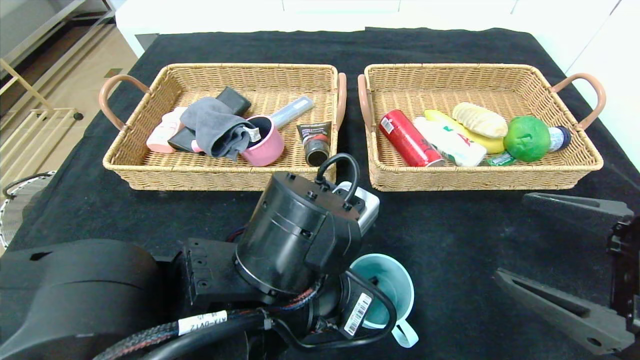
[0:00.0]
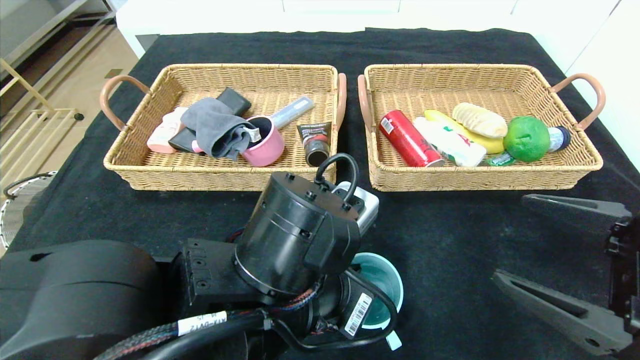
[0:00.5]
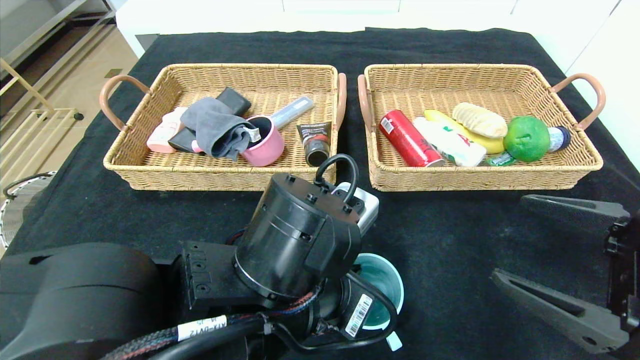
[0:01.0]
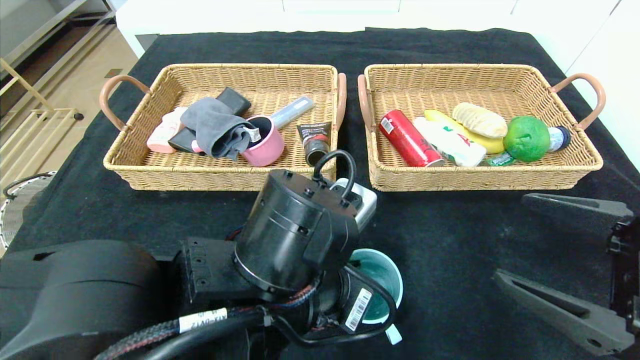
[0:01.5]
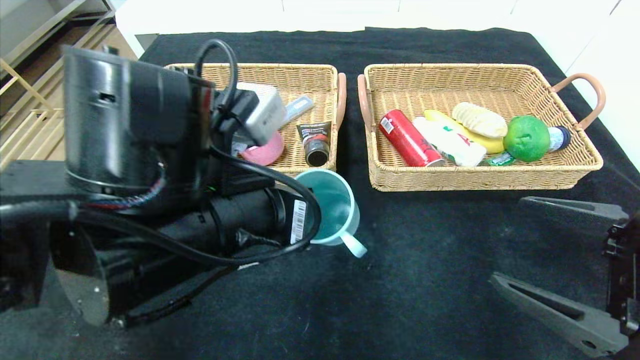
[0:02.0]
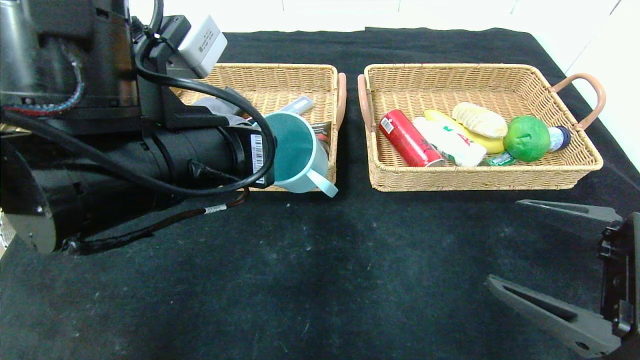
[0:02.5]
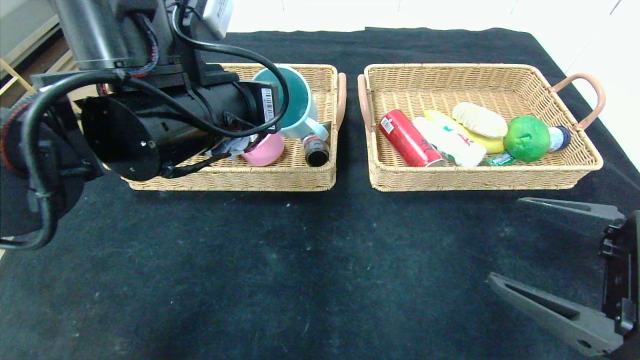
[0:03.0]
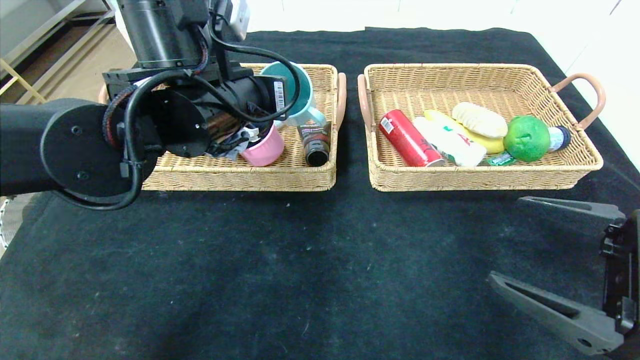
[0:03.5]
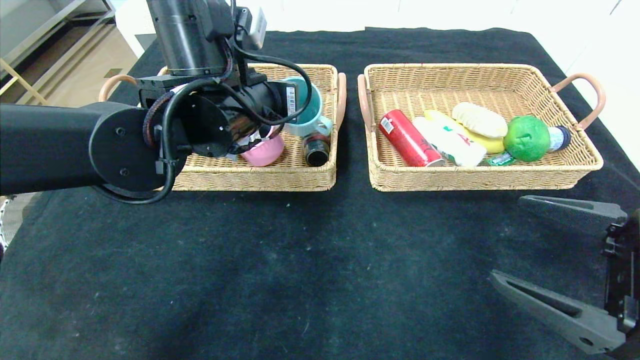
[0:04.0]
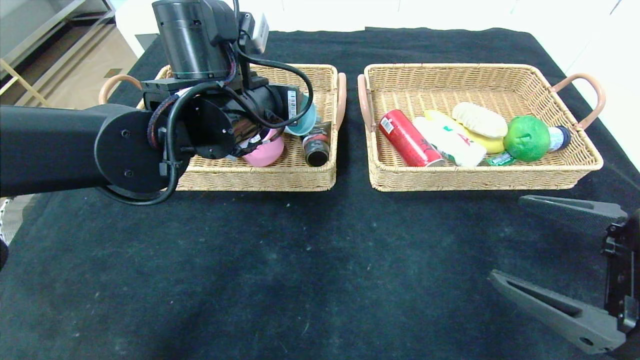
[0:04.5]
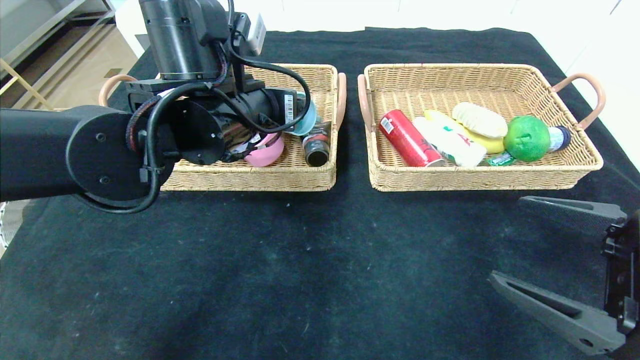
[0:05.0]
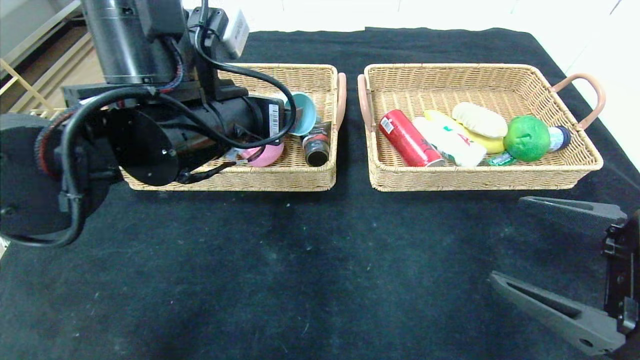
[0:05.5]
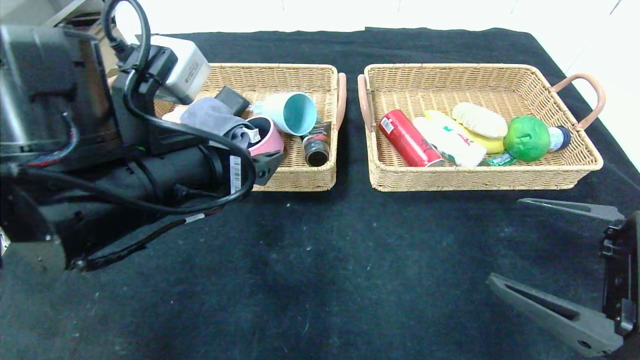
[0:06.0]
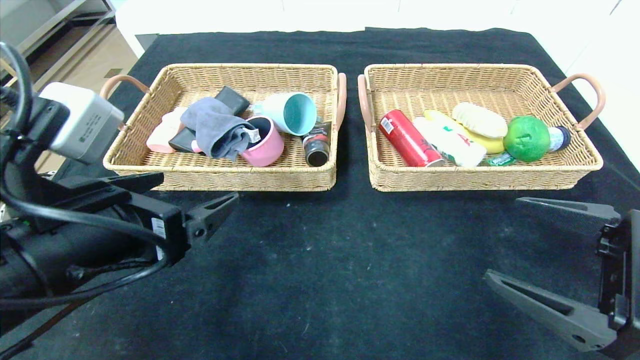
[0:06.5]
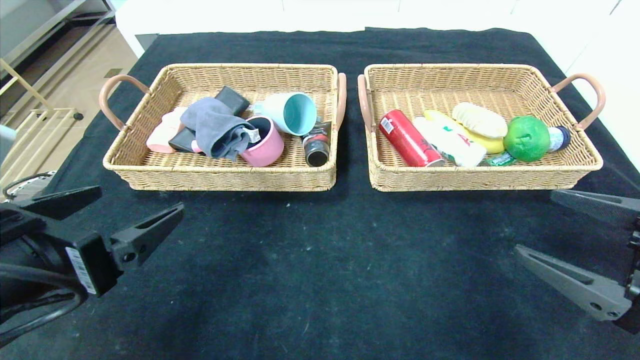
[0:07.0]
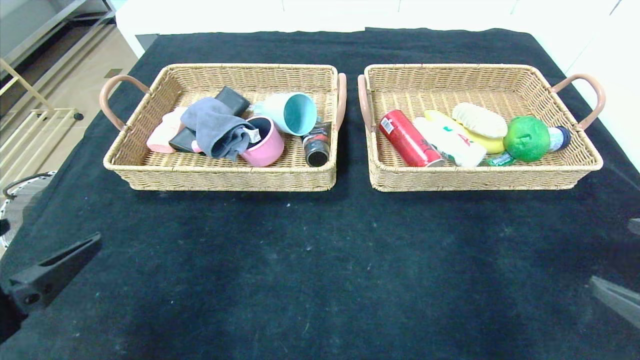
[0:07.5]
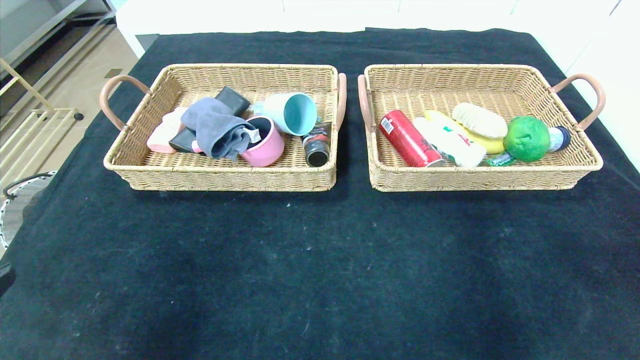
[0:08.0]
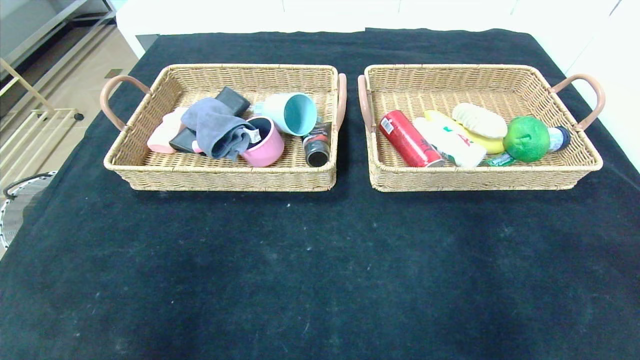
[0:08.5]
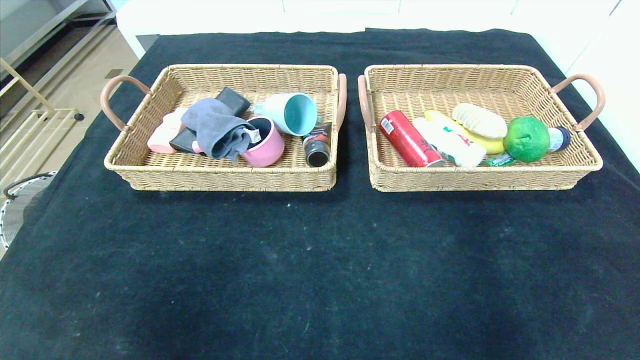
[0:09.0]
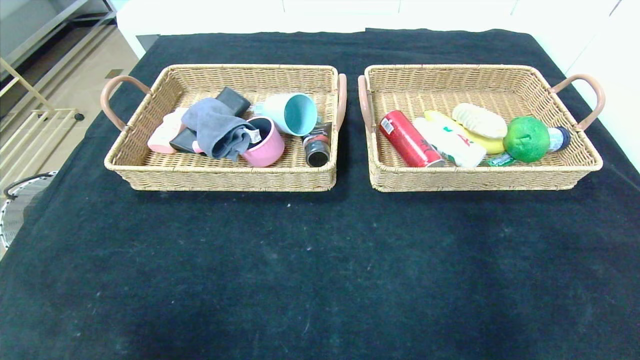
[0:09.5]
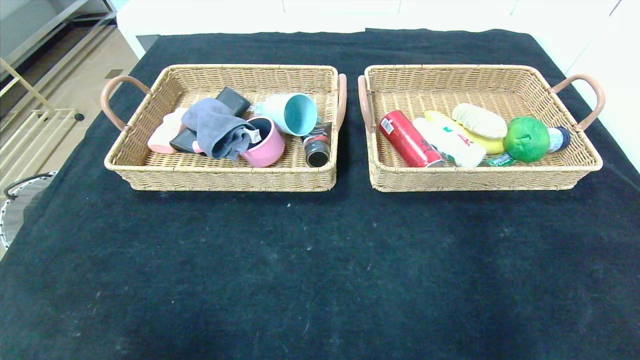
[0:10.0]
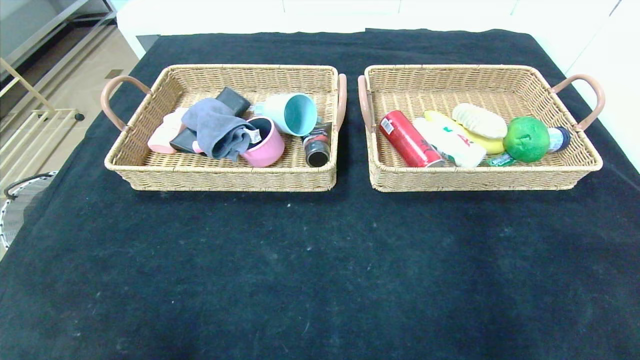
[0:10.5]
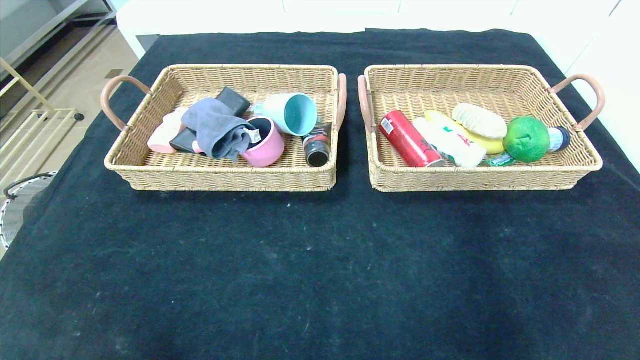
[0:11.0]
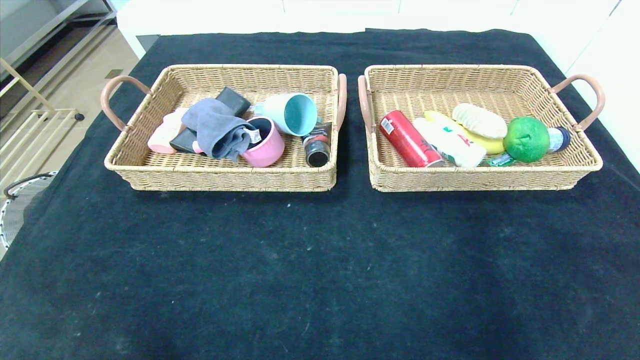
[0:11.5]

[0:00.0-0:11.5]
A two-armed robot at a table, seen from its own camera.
Step, 0:00.0 to 0:04.0: Grasp the blue cup and put it in the left basket.
0:00.0 to 0:02.0: The left gripper is displaced upward and to the left by about 10 cm, and closes up.
0:02.0 to 0:04.0: The left gripper is displaced forward by about 15 cm.
0:04.0 to 0:06.0: The left gripper heads backward, covering roughly 10 cm, and opens.
0:06.0 to 0:07.5: The right gripper shifts approximately 5 cm to the right. Meanwhile the left gripper travels backward and to the left by roughly 15 cm.
0:07.5 to 0:09.5: The left gripper goes some 15 cm backward and downward, while the right gripper is displaced backward by about 15 cm.

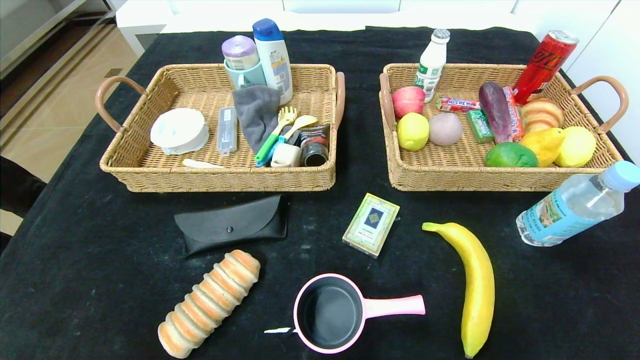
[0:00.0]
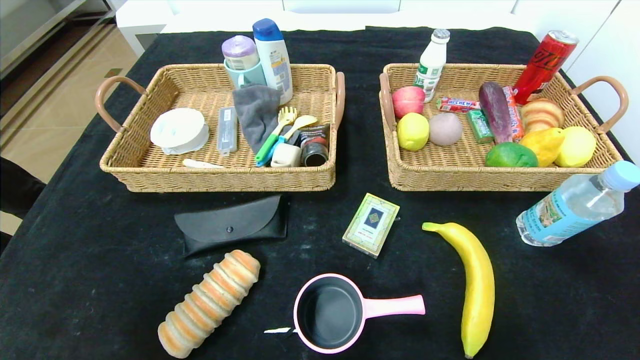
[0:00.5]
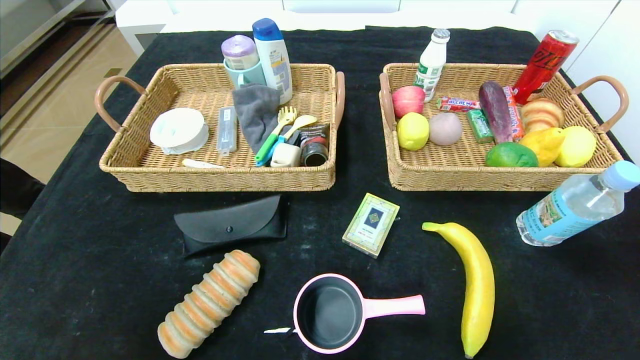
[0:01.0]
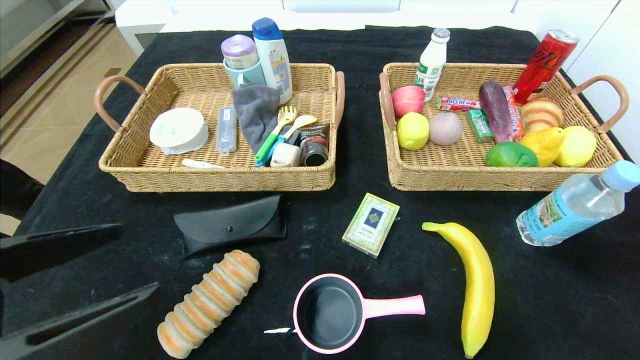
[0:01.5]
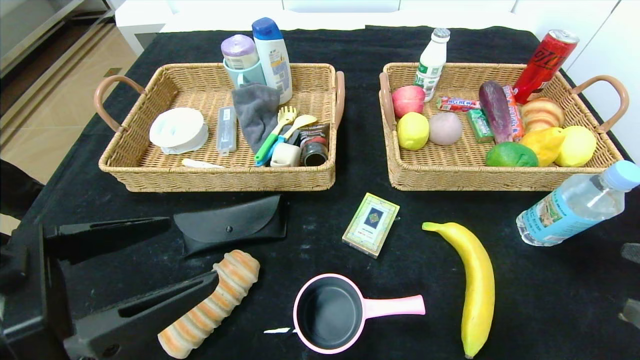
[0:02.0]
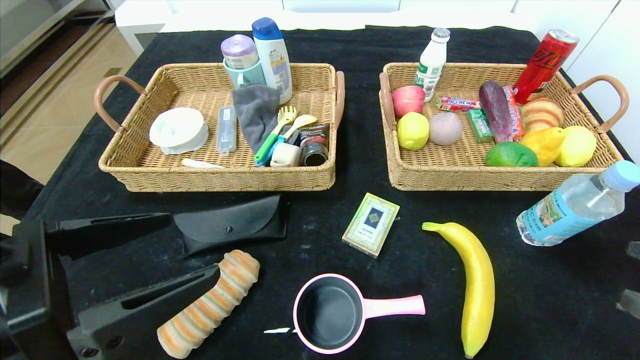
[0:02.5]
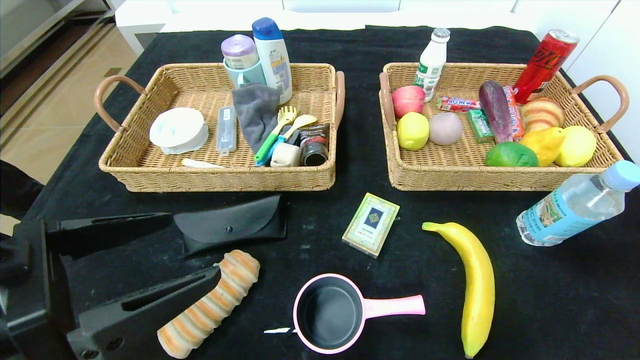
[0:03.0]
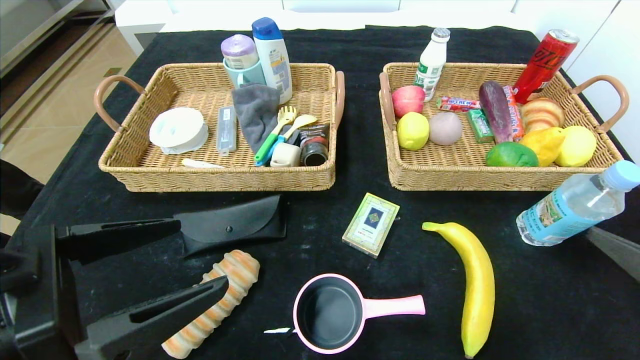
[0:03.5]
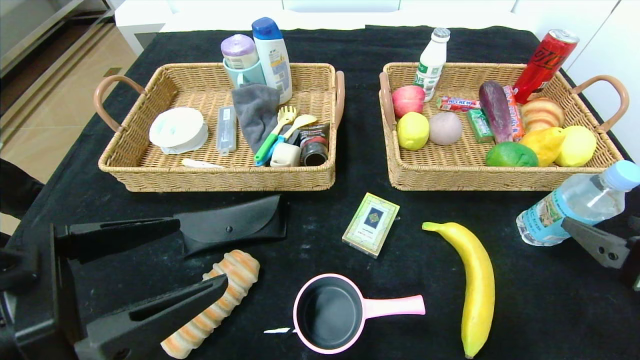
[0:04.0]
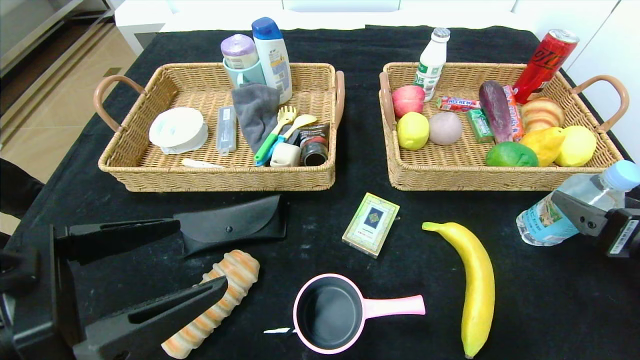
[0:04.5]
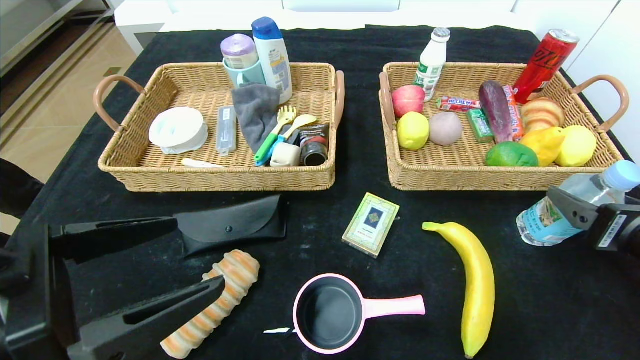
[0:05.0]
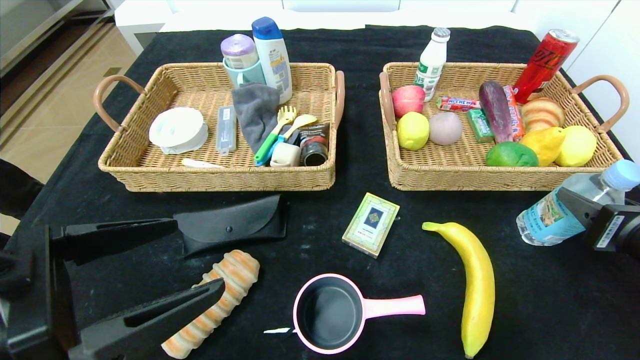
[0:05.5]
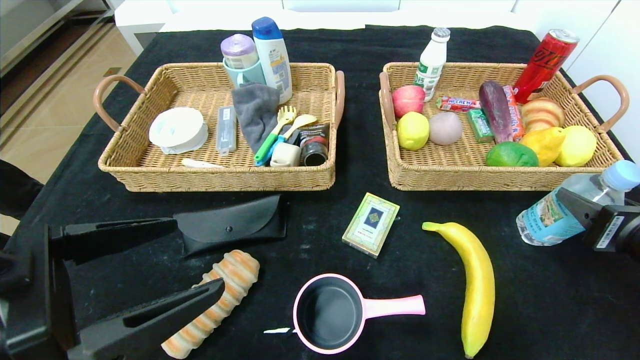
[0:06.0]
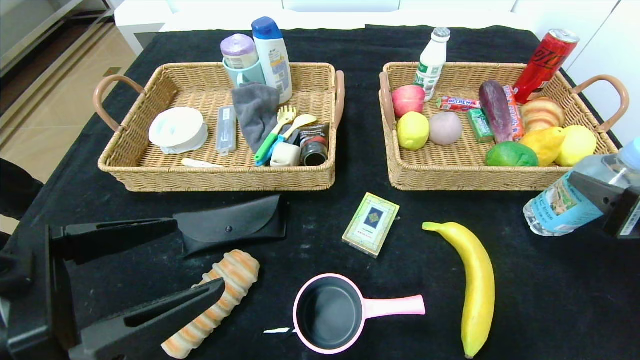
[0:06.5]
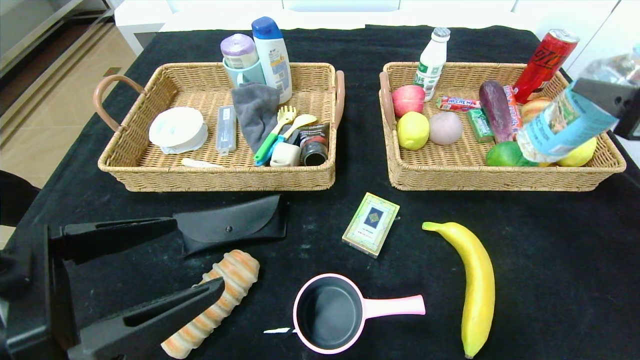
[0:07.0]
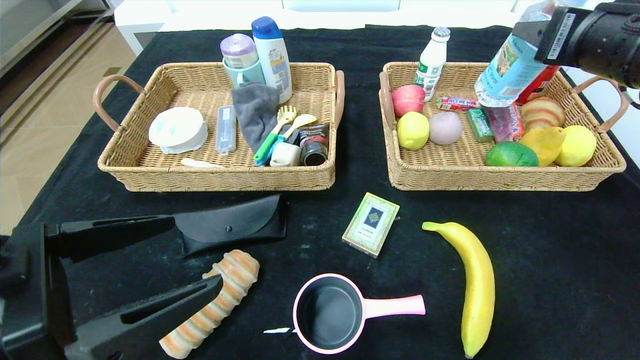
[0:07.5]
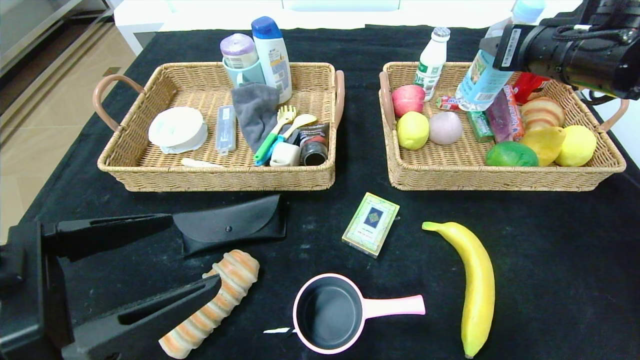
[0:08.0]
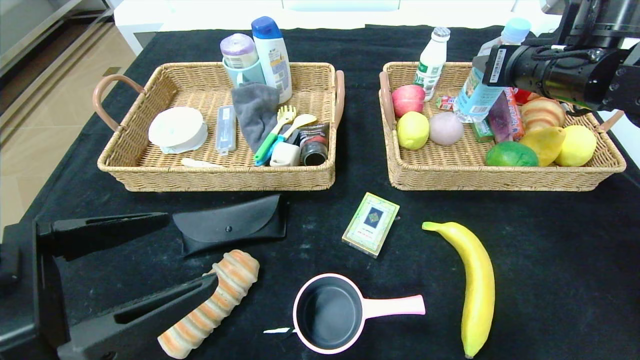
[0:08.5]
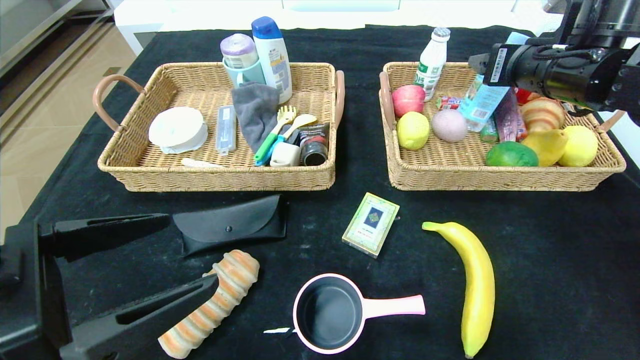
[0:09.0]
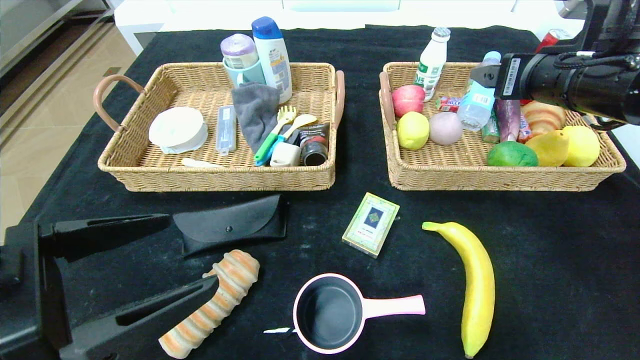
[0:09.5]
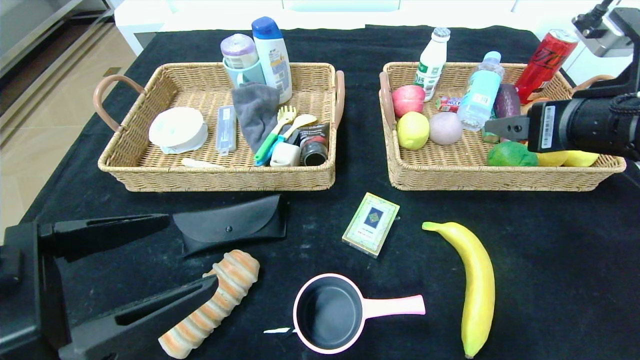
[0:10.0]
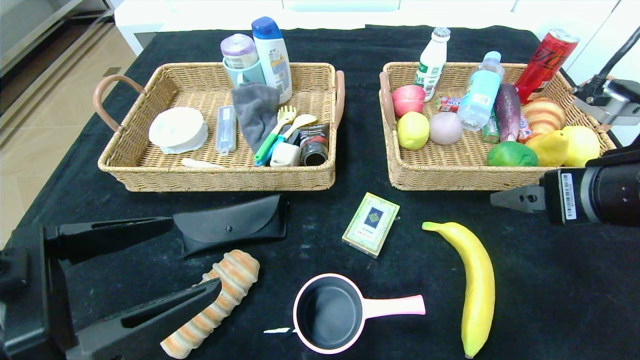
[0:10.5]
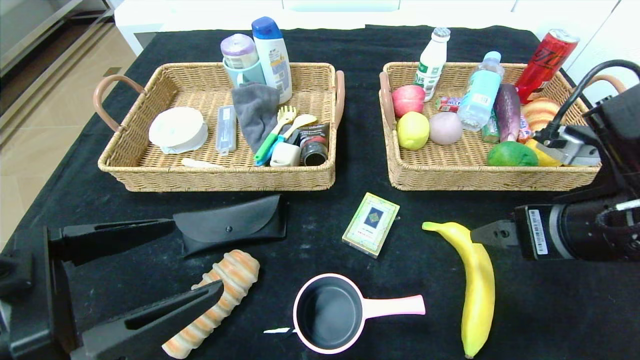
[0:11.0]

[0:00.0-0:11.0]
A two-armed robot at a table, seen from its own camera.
Step, 0:00.0 to 0:10.5: Pick up the soda water and put it in the right basket.
0:00.0 to 0:02.0: The grippers both shift upward and forward by roughly 20 cm.
0:03.5 to 0:05.5: The right gripper moves forward, roughly 10 cm, and closes.
0:05.5 to 0:07.5: The right gripper moves upward and forward, roughly 20 cm.
0:07.5 to 0:09.0: The right gripper shifts some 10 cm forward.
0:09.0 to 0:11.0: The right gripper heads backward and downward, covering about 20 cm.
